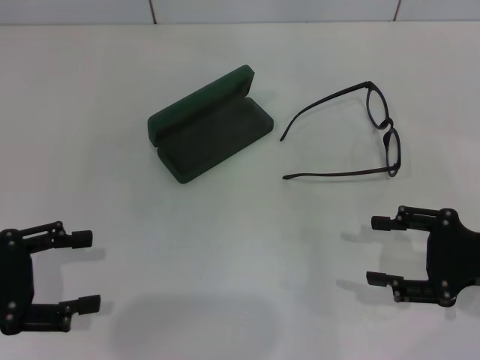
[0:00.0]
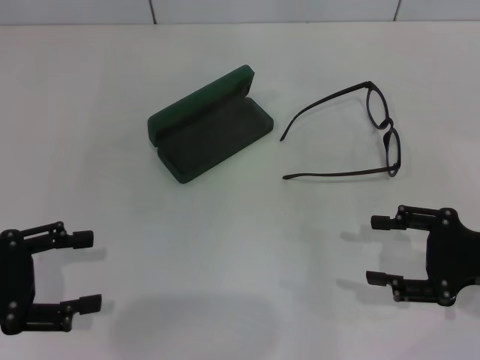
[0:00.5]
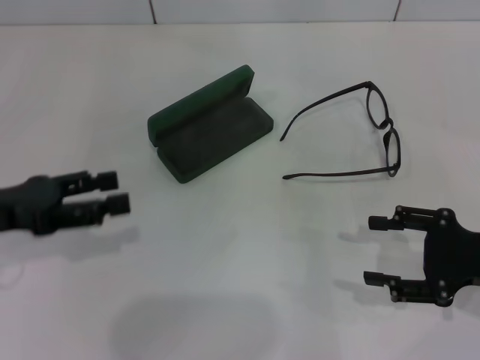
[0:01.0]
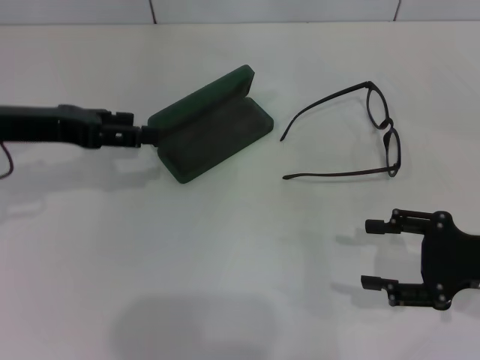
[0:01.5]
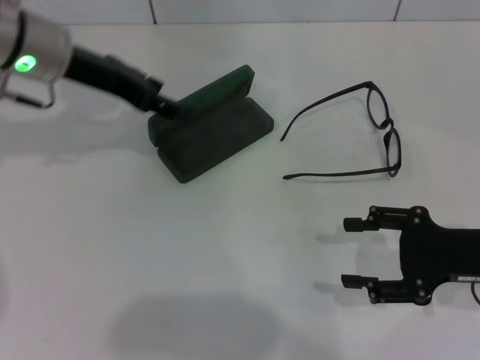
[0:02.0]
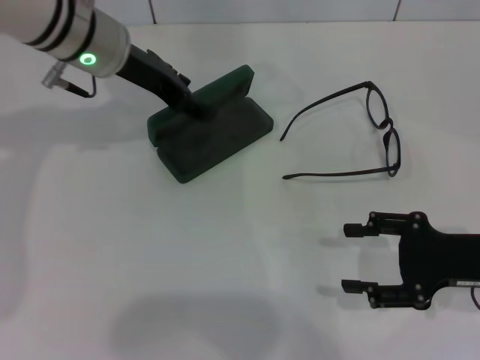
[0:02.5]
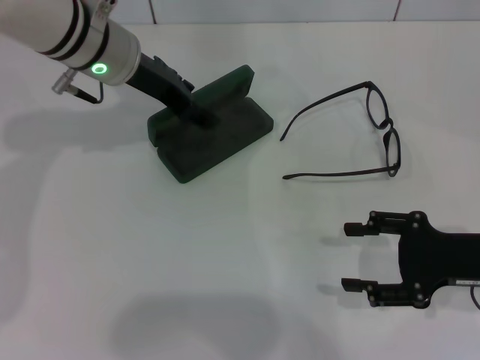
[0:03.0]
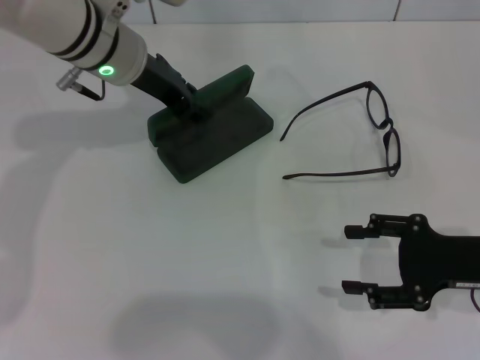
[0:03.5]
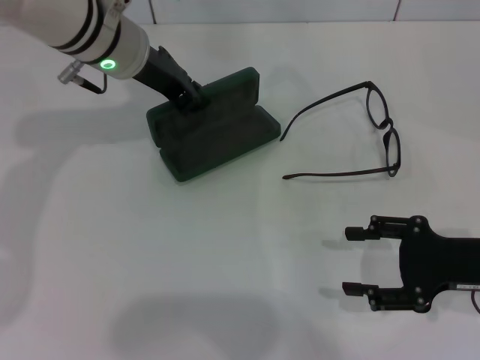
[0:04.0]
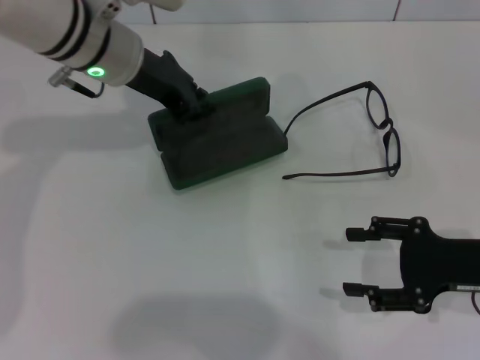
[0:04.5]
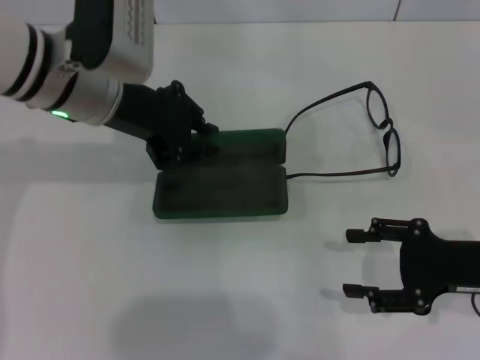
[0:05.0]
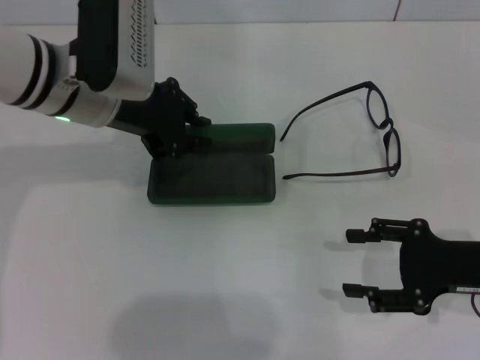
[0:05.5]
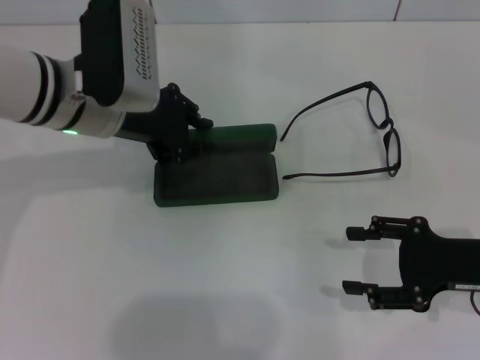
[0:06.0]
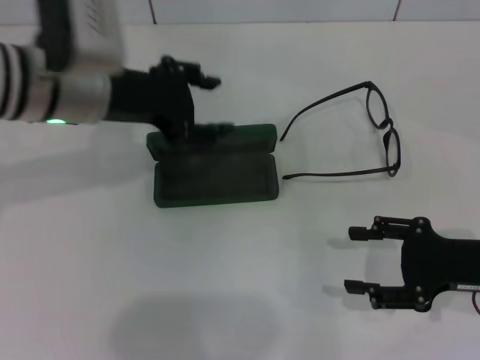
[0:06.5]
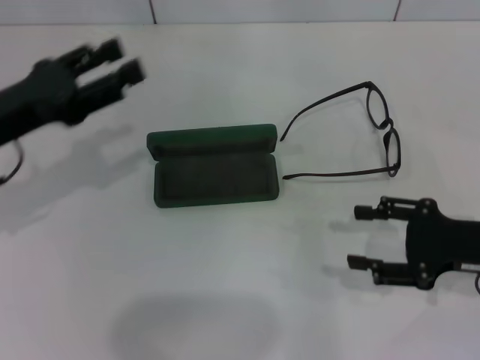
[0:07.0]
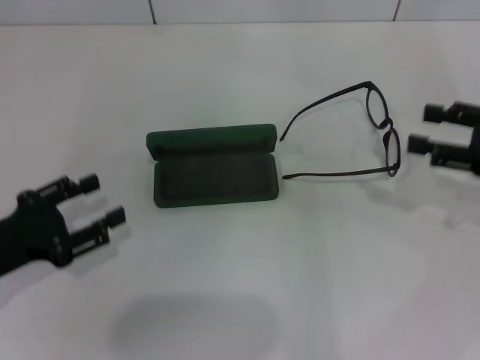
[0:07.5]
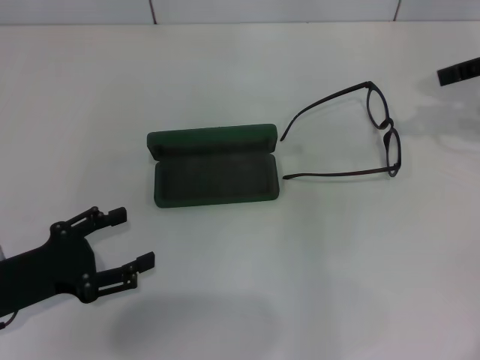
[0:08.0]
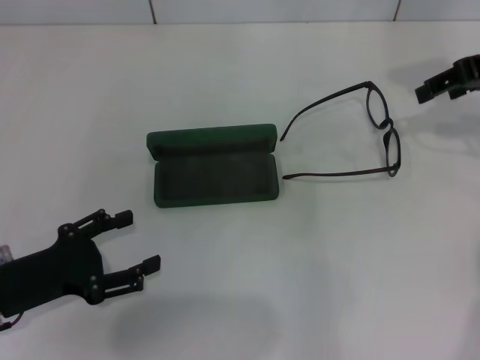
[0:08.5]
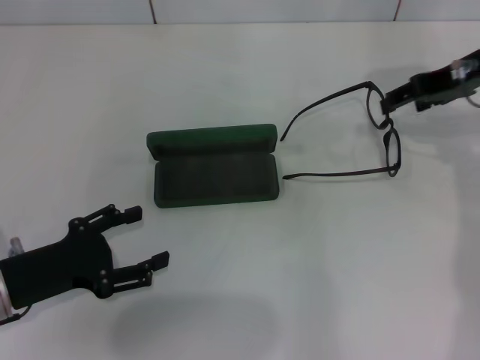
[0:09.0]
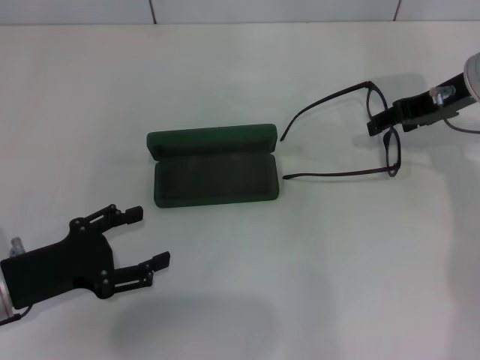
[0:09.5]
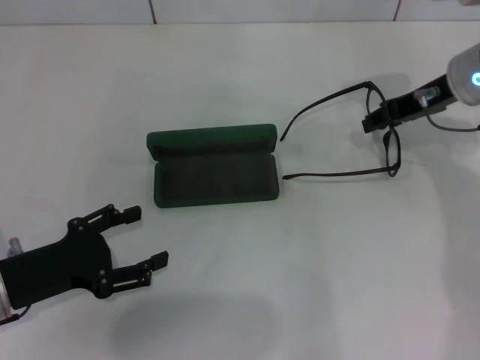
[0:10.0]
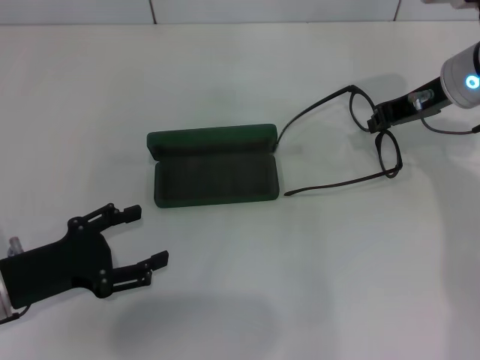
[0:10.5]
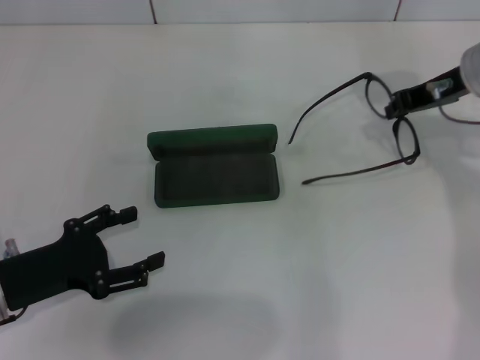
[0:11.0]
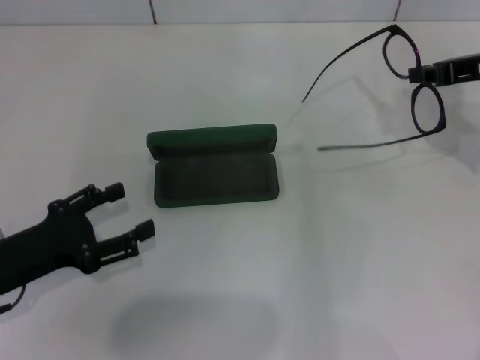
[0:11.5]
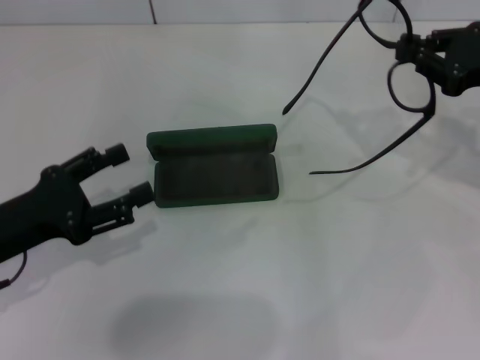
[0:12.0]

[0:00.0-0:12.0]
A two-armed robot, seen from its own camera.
Step, 0:00.0 to 0:03.5: Grab the glasses case with your left hand.
Step, 0:04.0 to 0:06.0: Place the glasses case in the center of the table with your left hand.
Step, 0:06.5 to 0:10.0: Grab the eyeglass frame with your right hand.
0:00.0 to 0:02.0: The left gripper travels forward, to the right and upward by about 25 cm.
0:02.0 to 0:04.0: The left gripper heads to the right, covering approximately 5 cm, and closes.
0:04.0 to 0:06.0: The left gripper is displaced backward by about 5 cm.
0:06.0 to 0:08.0: The left gripper heads backward, to the left and downward, covering approximately 25 cm, and opens. The right gripper moves upward and forward, roughly 20 cm.
0:08.0 to 0:10.0: The right gripper shifts some 15 cm to the left and downward.
0:10.0 to 0:12.0: The right gripper shifts roughly 10 cm to the right and backward, and closes up.

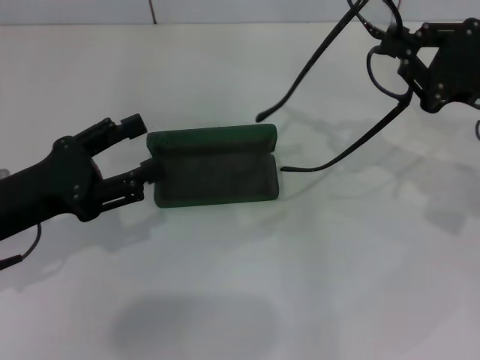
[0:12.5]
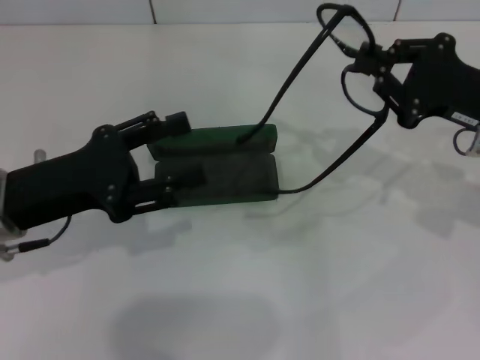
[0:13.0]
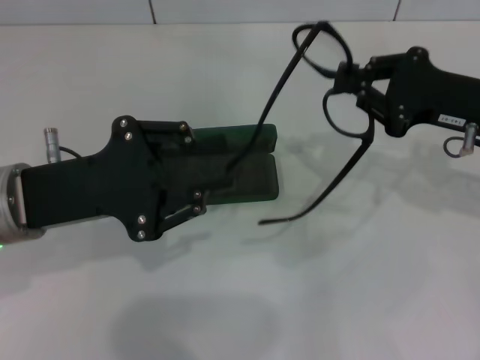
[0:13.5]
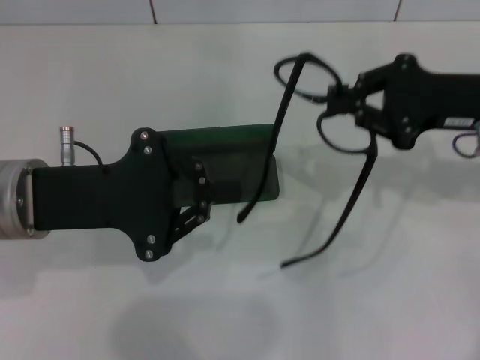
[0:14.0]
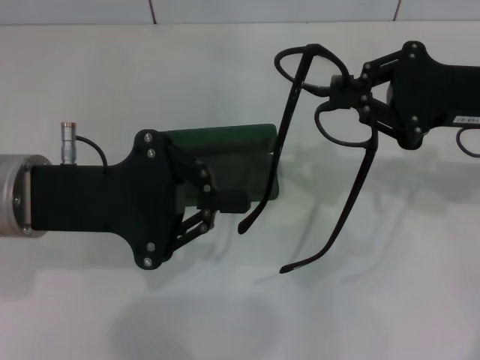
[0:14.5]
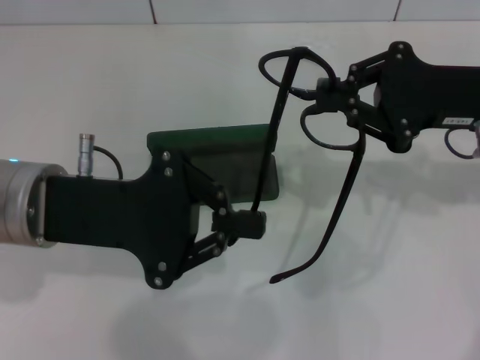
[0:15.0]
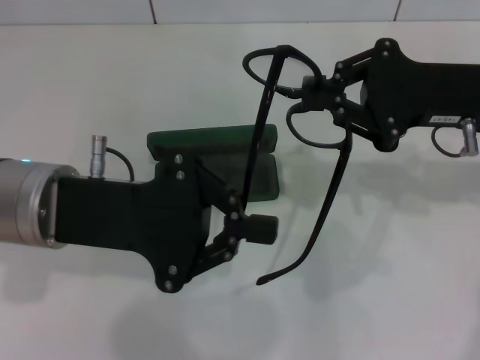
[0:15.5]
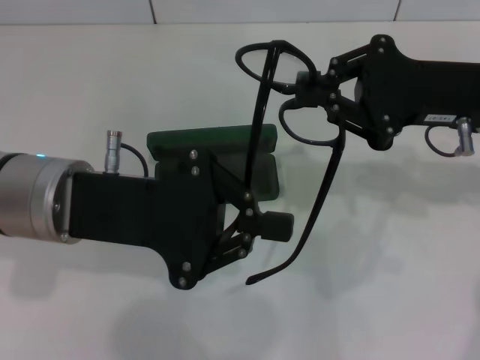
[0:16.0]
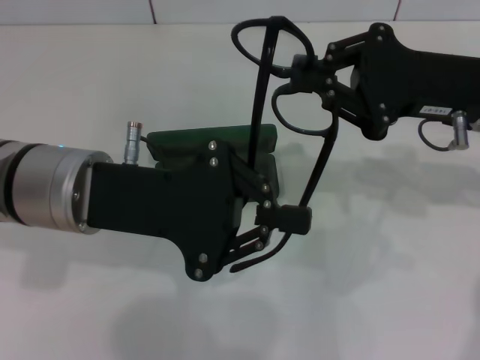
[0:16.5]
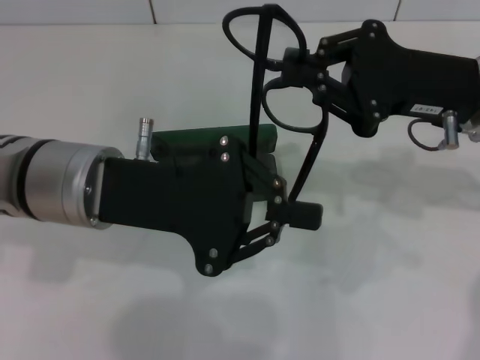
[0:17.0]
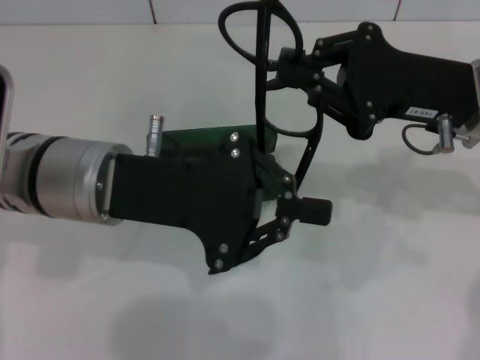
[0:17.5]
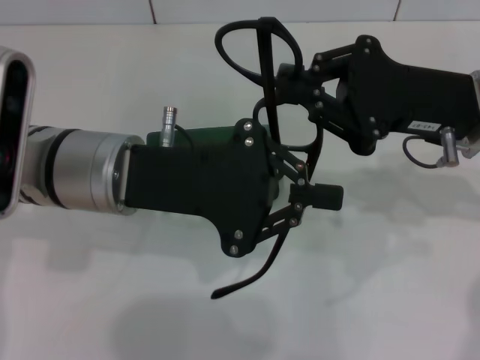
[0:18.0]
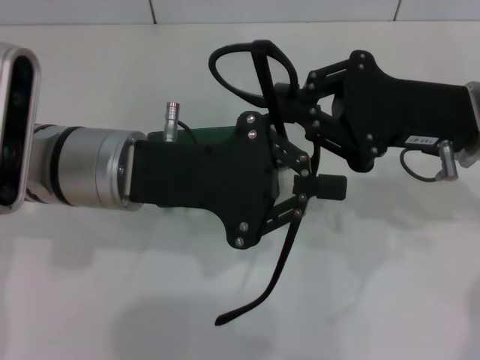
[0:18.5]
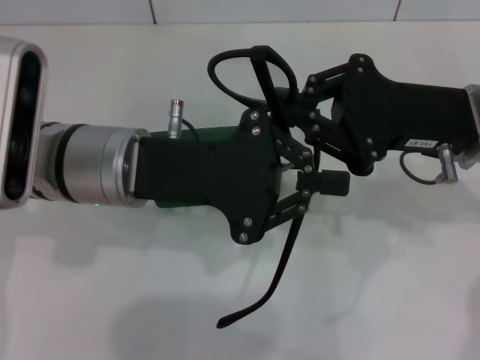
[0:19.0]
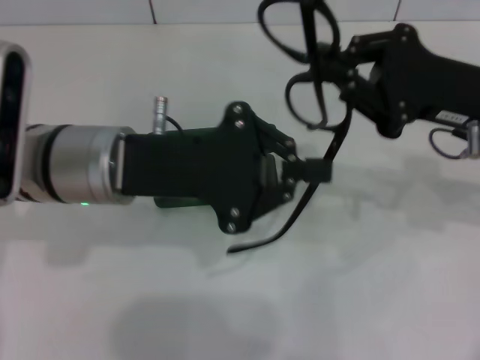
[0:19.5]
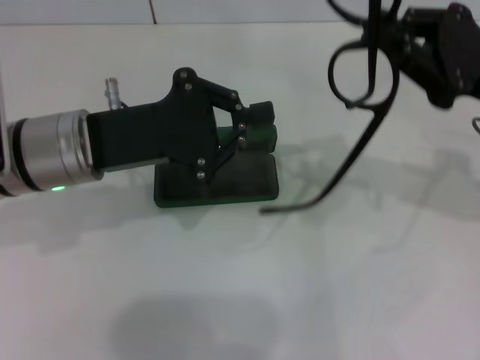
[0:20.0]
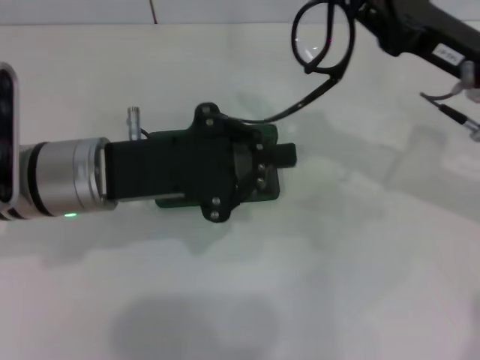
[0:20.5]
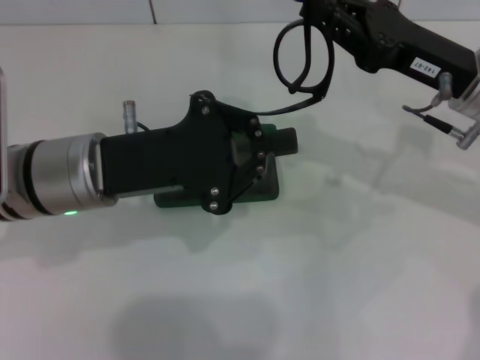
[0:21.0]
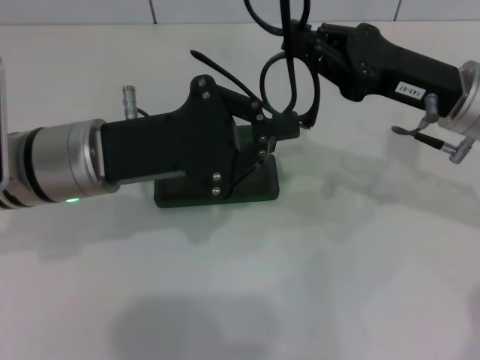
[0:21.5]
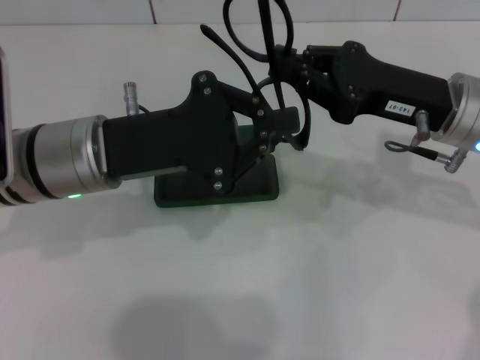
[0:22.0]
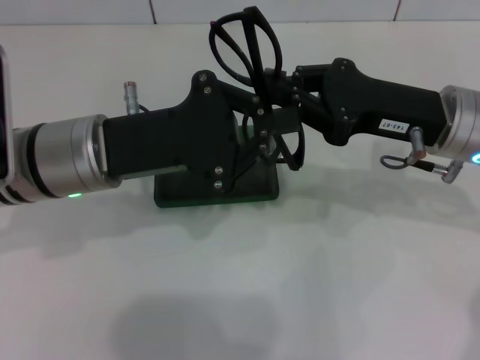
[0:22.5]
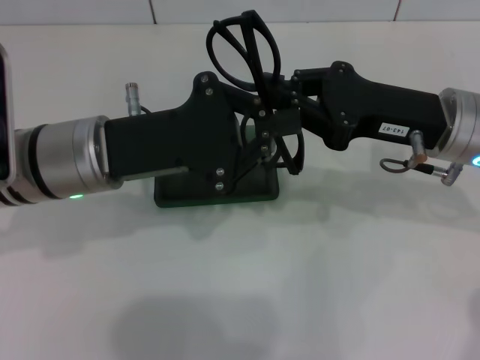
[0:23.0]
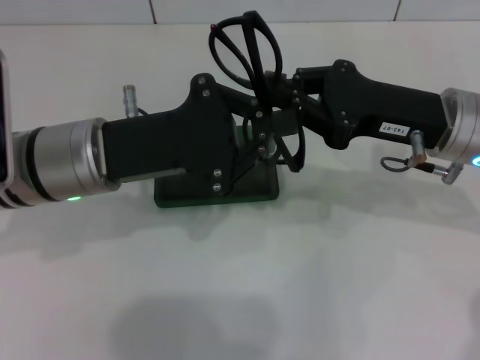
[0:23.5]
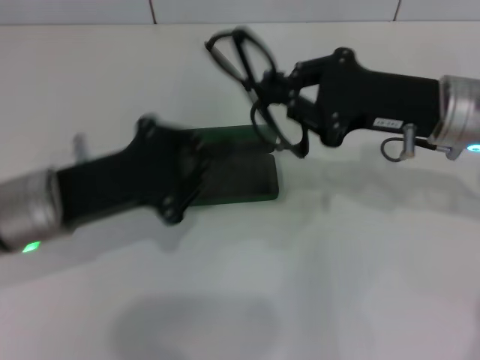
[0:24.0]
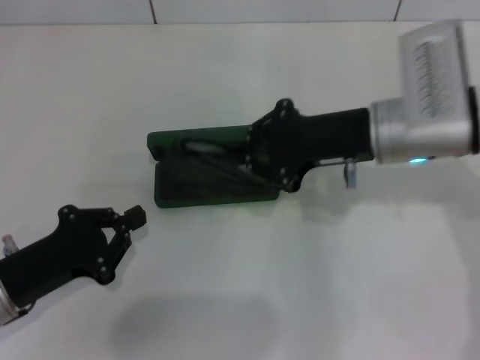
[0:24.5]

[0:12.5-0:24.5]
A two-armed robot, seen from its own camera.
Step, 0:12.5 to 0:23.0: Fold the frame with your left hand.
0:12.5 to 0:14.5: The left gripper goes about 10 cm to the right and upward, and closes its fingers.
0:14.5 to 0:16.5: The grippers make only small movements.
0:22.5 to 0:24.5: The right gripper changes place by about 5 cm; the left gripper moves to the left, downward and backward, some 15 cm.

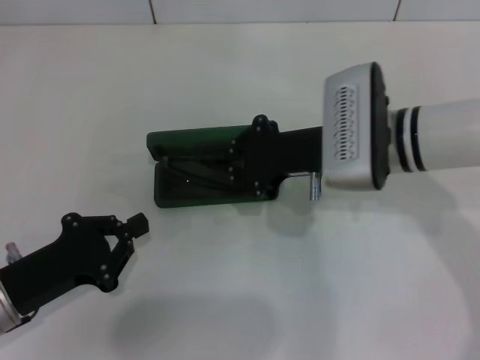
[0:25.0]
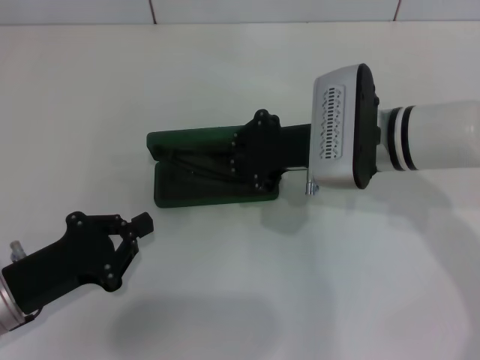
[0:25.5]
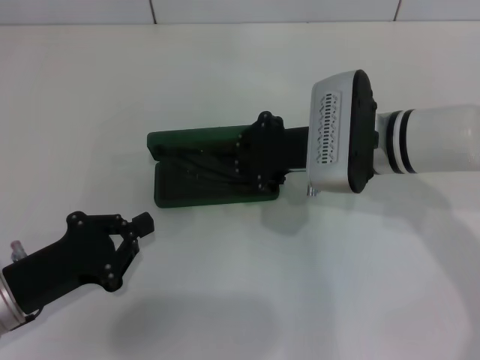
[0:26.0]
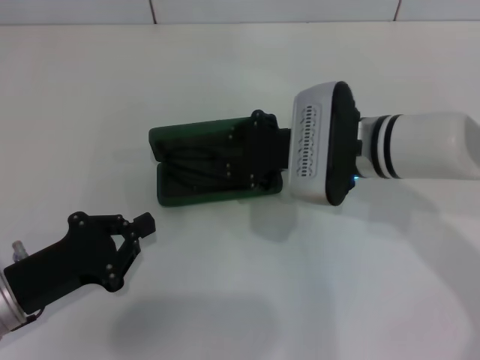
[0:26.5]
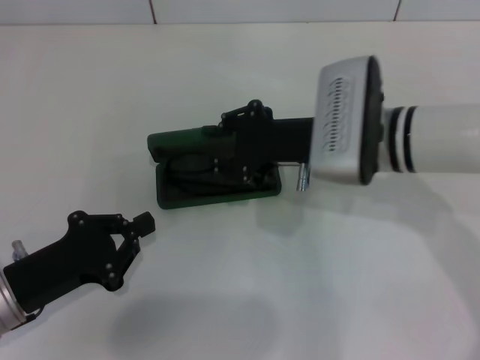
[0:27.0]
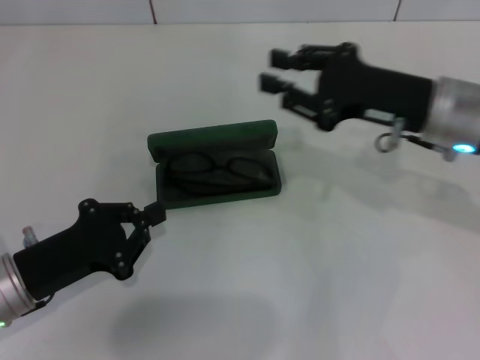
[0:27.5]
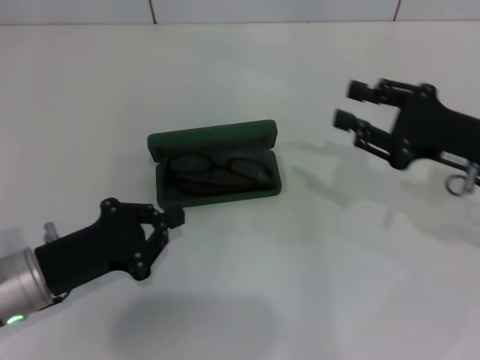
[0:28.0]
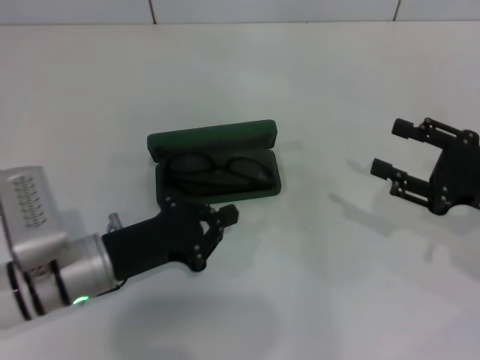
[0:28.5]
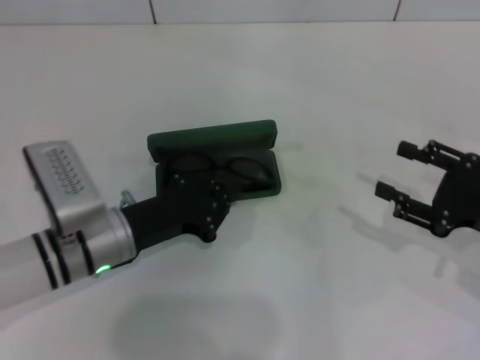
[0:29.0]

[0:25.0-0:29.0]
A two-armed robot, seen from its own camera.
0:25.0 to 0:27.0: There are only small adjustments of the grippers.
0:27.0 to 0:29.0: The left gripper heads to the right and forward, covering about 10 cm; the right gripper shifts some 20 cm to the right and backward, and opens its fingers.
